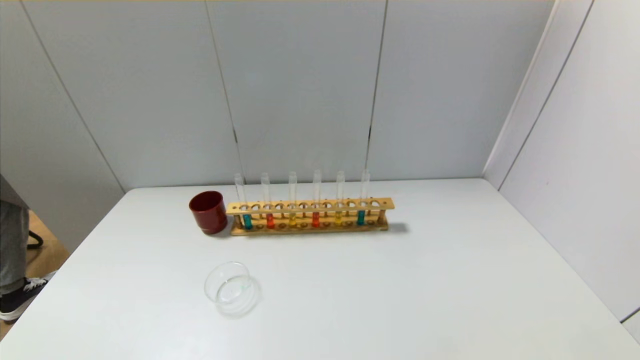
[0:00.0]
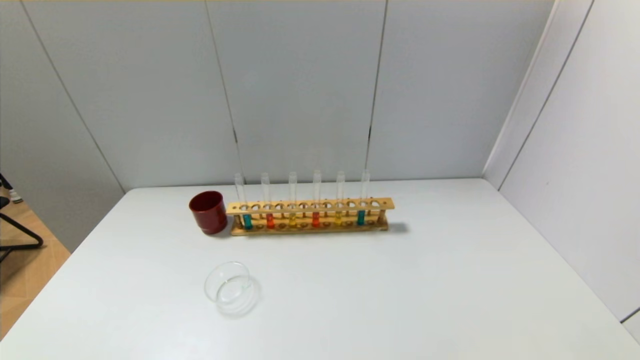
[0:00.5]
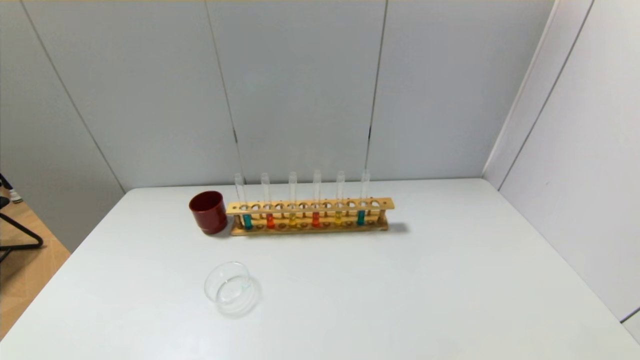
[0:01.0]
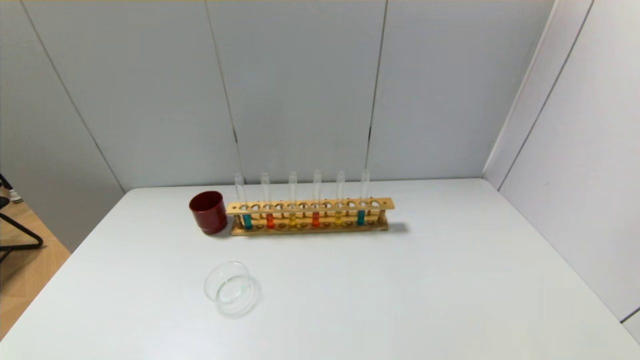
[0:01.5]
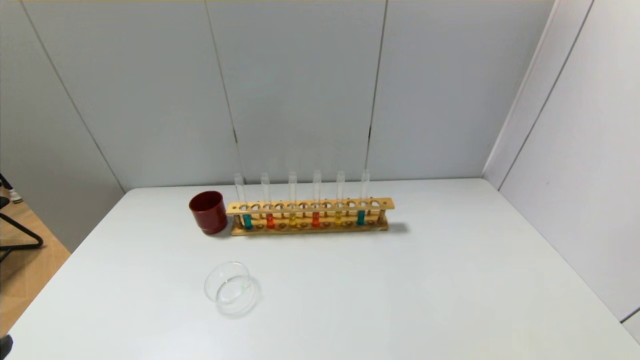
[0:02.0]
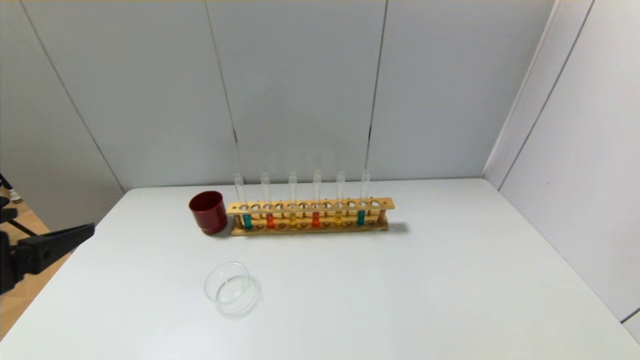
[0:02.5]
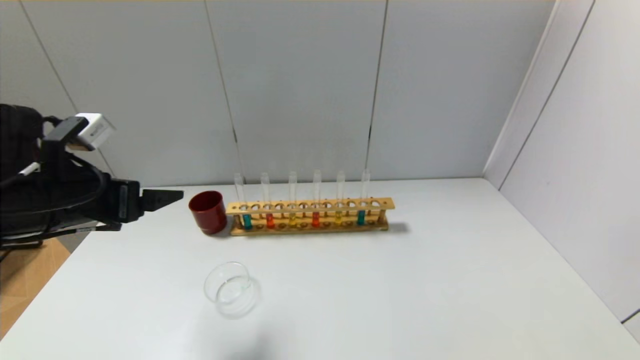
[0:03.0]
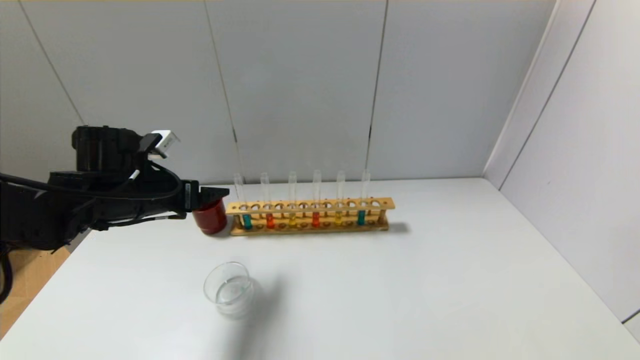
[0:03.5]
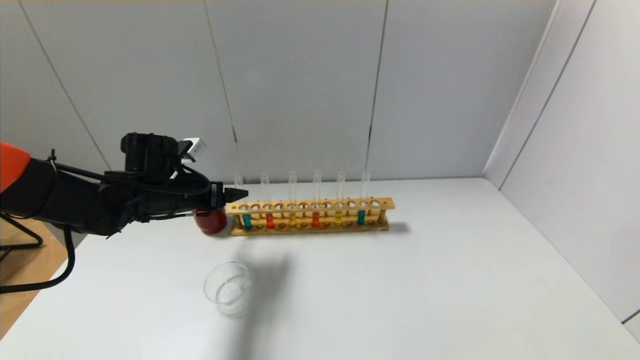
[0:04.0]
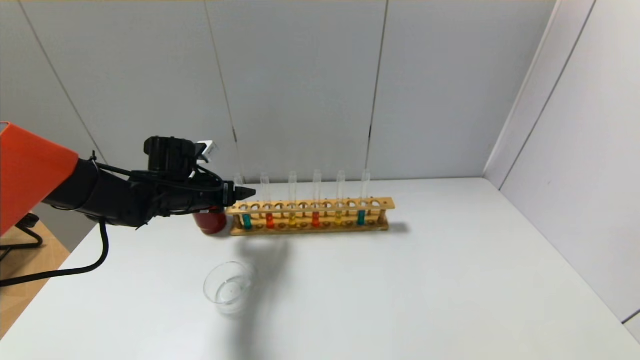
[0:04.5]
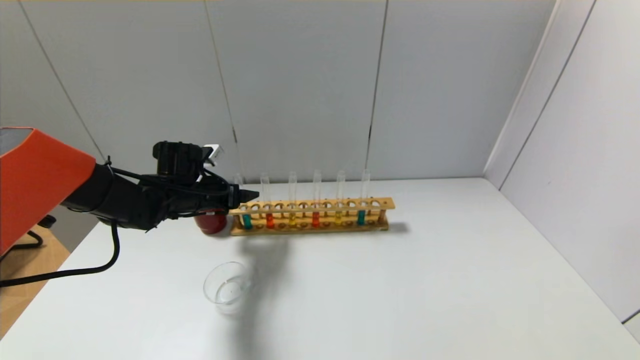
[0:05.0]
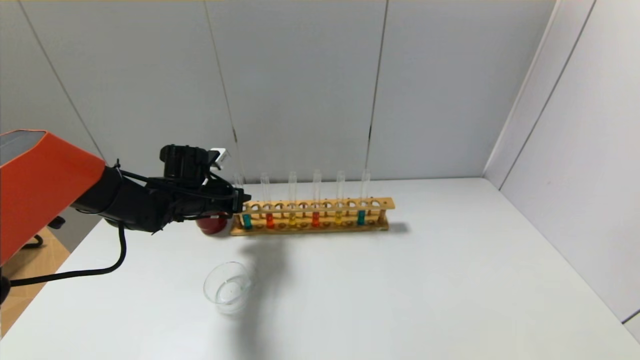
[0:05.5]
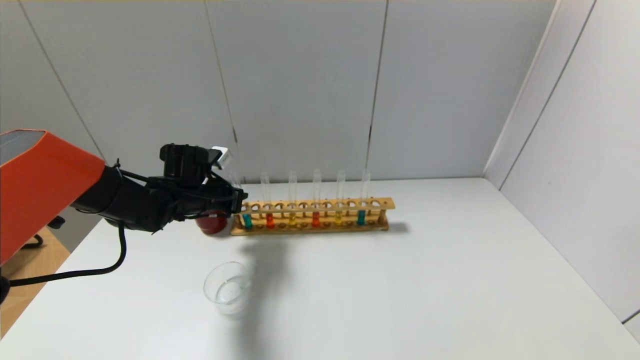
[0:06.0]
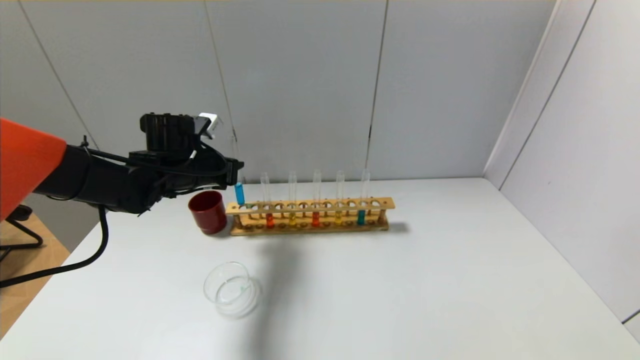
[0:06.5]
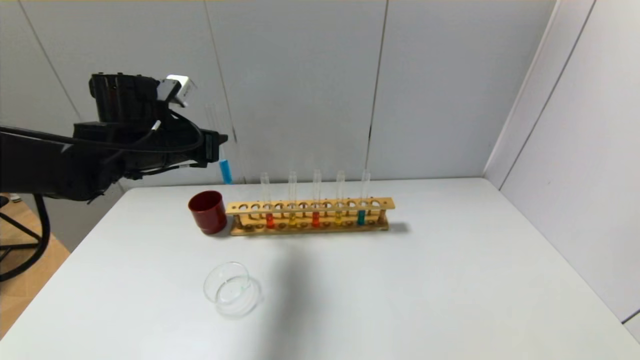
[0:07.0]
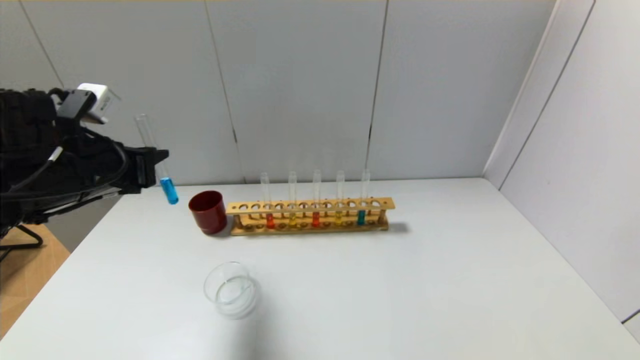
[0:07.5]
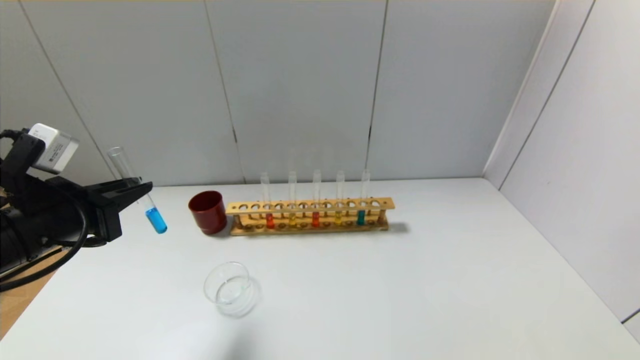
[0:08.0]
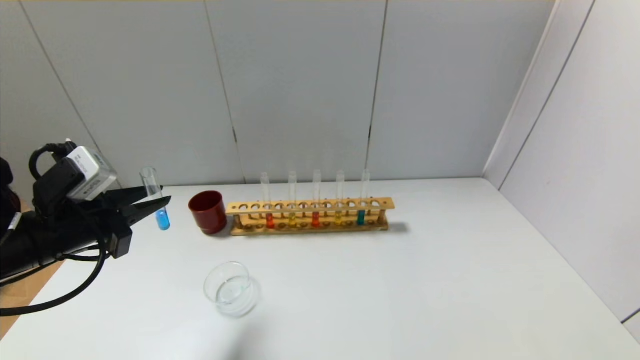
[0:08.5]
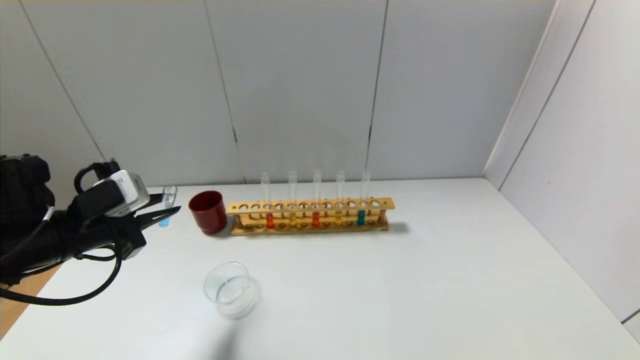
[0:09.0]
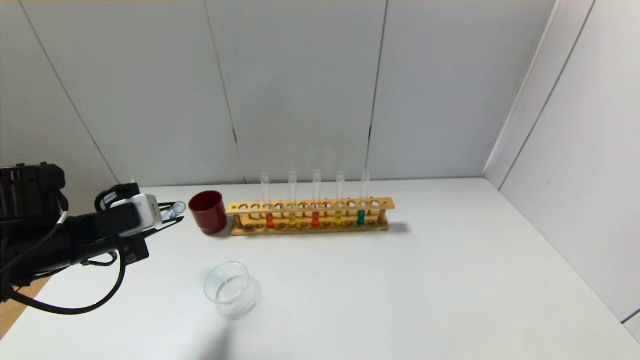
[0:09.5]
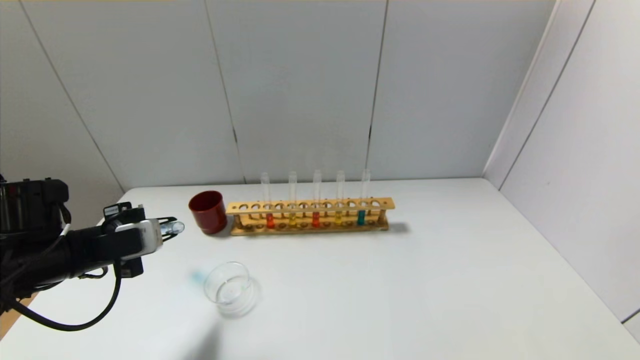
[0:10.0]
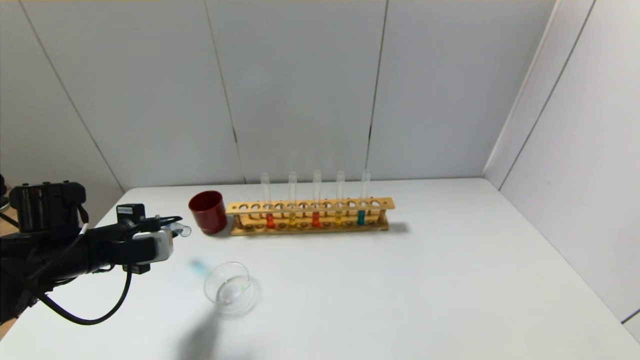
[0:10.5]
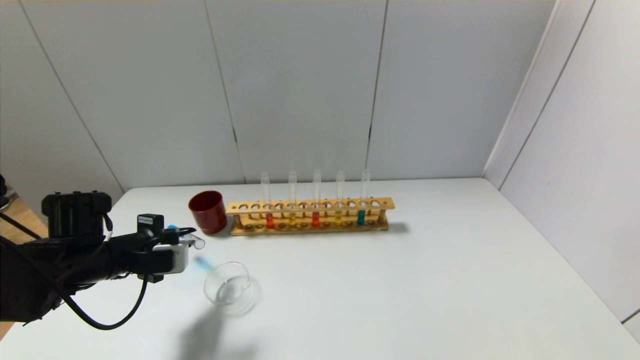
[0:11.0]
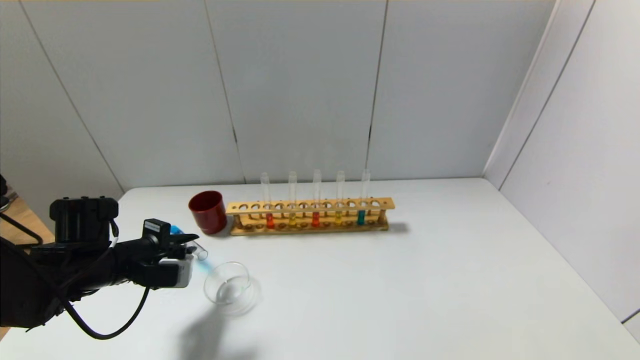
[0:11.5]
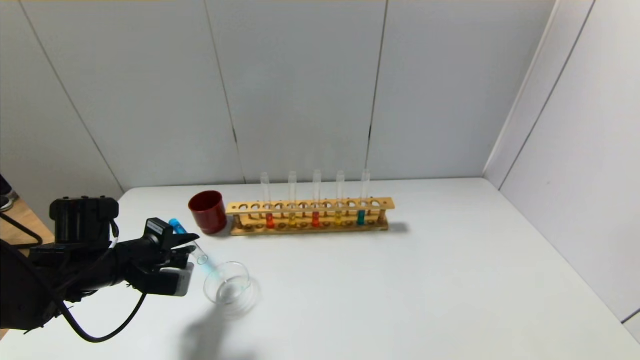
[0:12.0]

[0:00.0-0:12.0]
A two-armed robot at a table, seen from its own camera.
Step, 0:00.0 to 0:05.5: Grasp the blue reagent with the left gripper.
0:00.0 to 0:02.0: The left gripper moves upward, approximately 15 cm.
0:02.0 to 0:04.0: The left gripper heads forward, covering approximately 35 cm.
0:04.0 to 0:06.0: The left gripper ends up approximately 5 cm from where it was, and closes its fingers.
0:06.0 to 0:08.0: The left gripper heads backward, upward and to the left, covering some 25 cm.
0:08.0 to 0:10.0: The left gripper goes approximately 5 cm downward.
0:10.0 to 0:12.0: The left gripper shifts by some 5 cm.

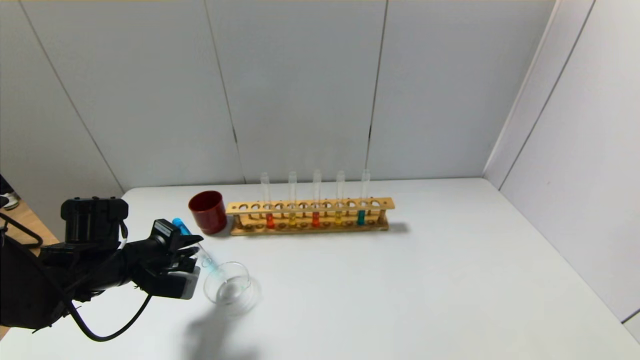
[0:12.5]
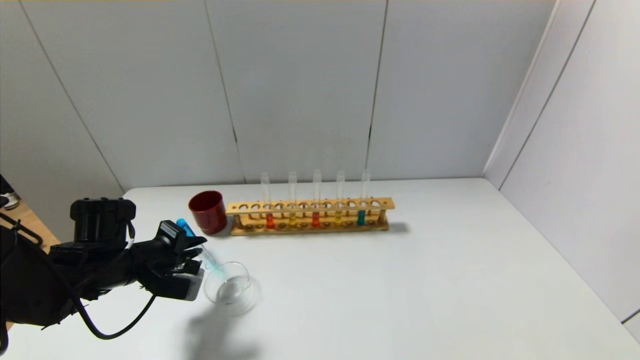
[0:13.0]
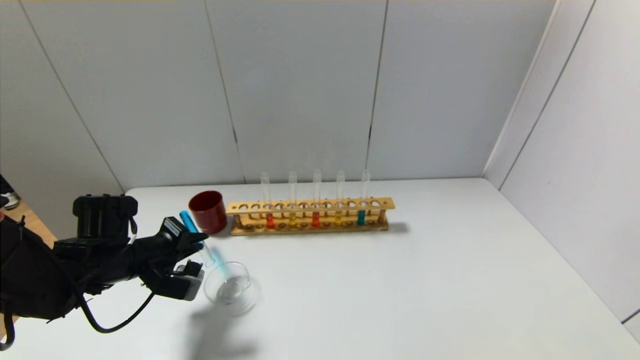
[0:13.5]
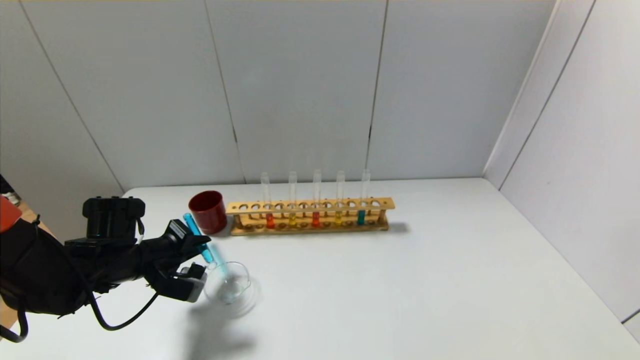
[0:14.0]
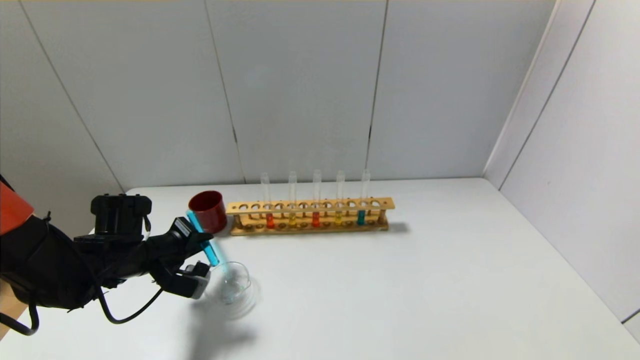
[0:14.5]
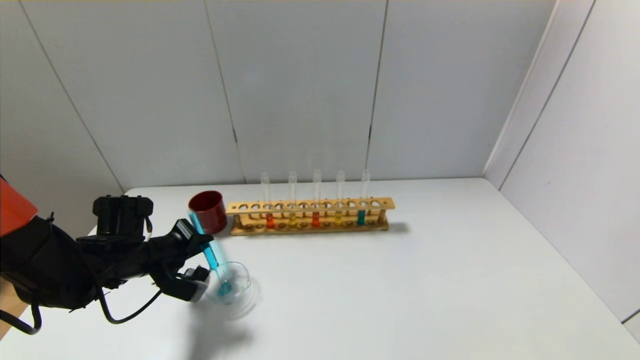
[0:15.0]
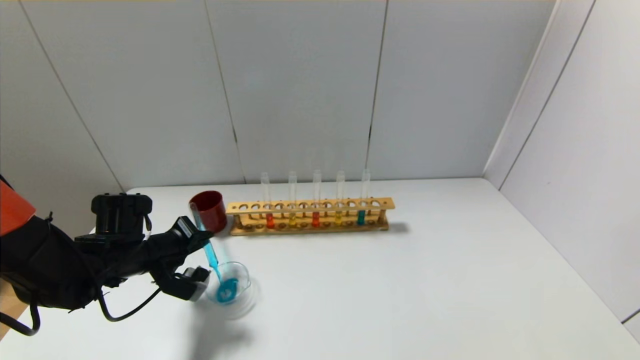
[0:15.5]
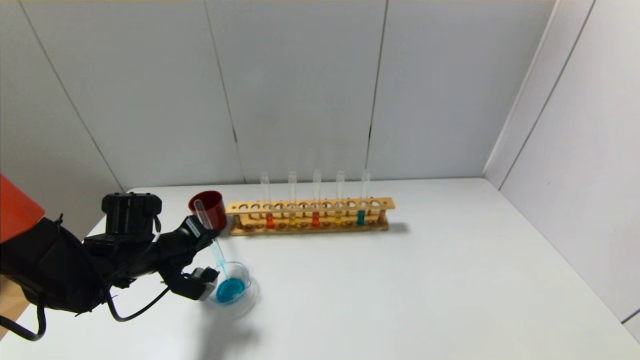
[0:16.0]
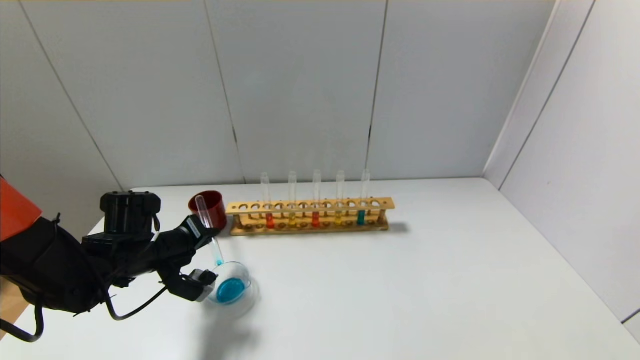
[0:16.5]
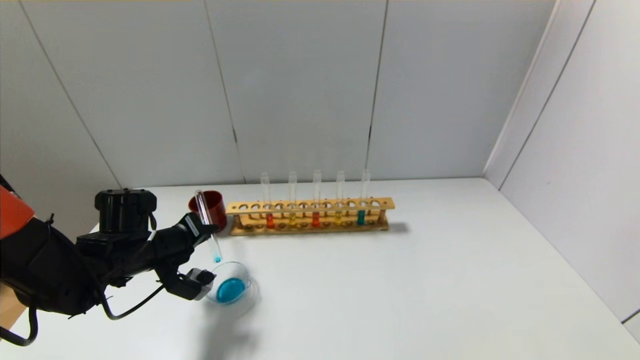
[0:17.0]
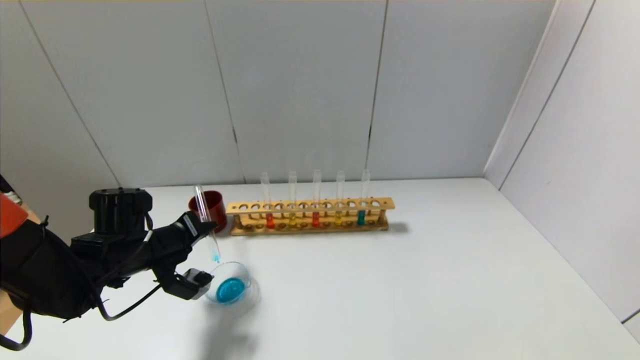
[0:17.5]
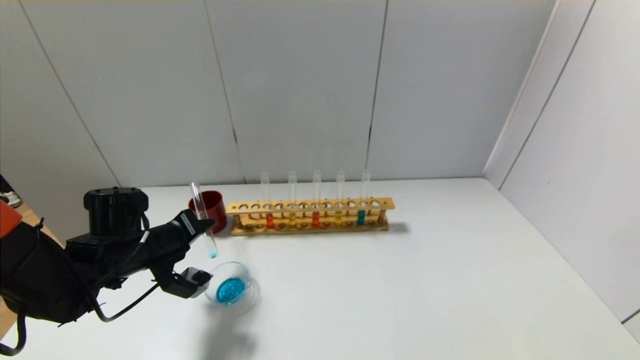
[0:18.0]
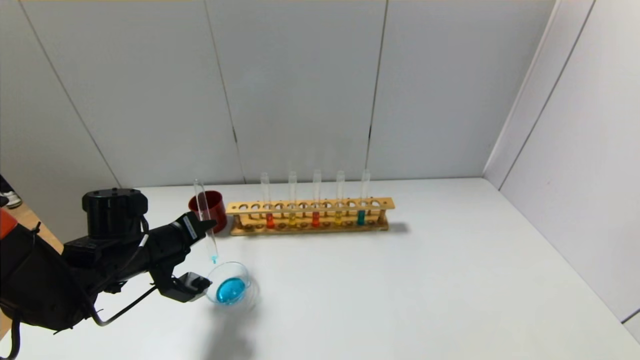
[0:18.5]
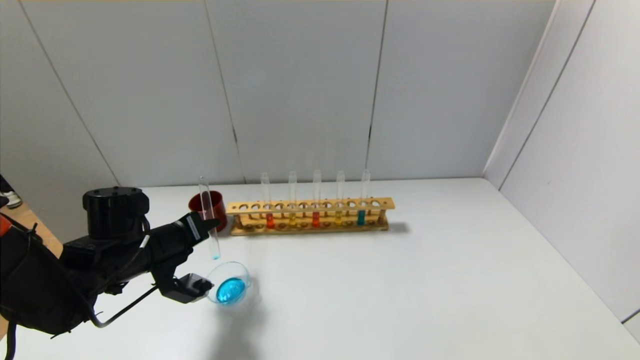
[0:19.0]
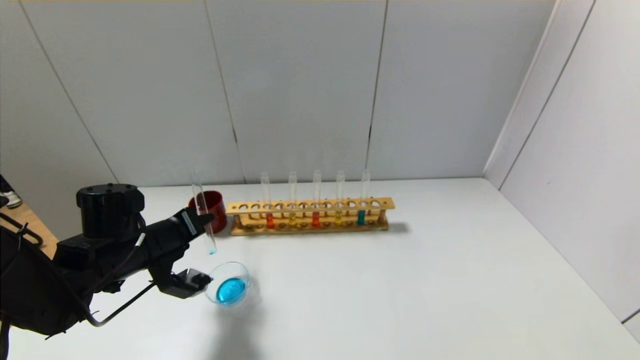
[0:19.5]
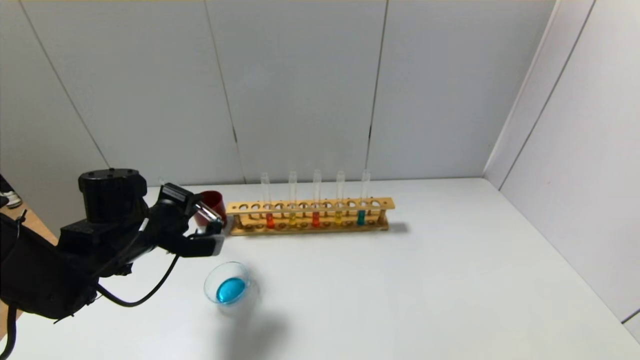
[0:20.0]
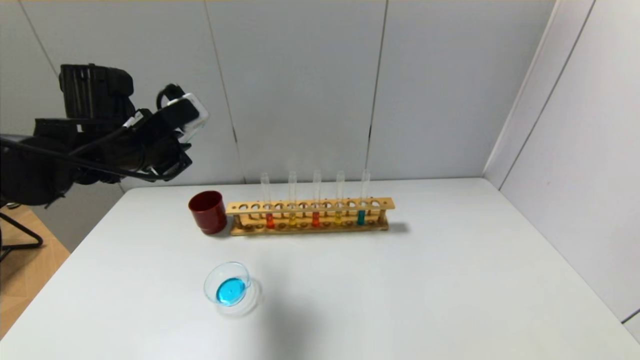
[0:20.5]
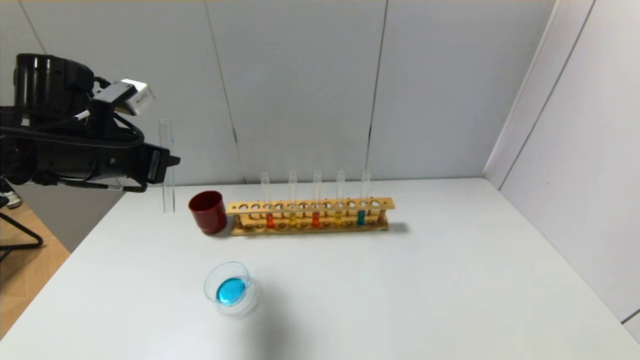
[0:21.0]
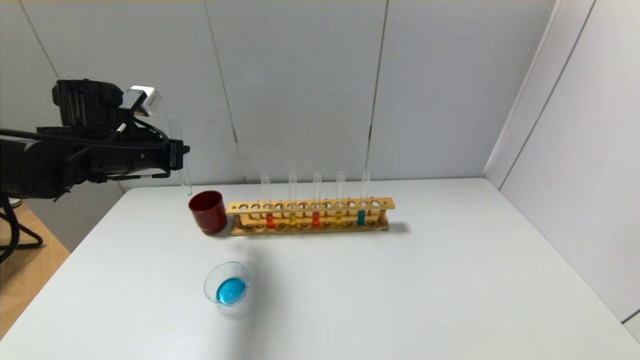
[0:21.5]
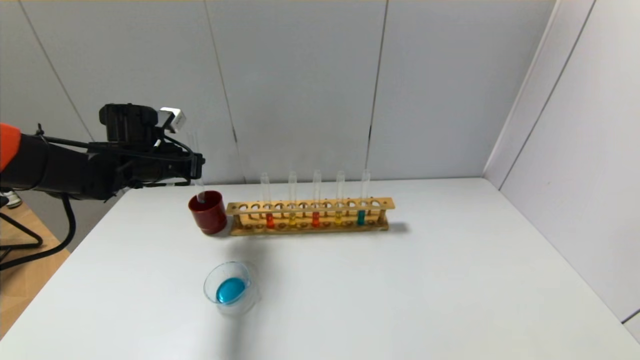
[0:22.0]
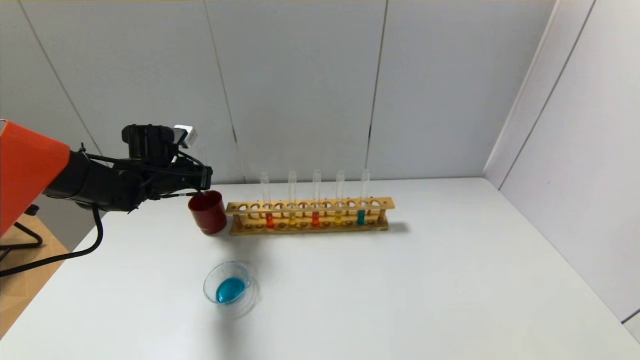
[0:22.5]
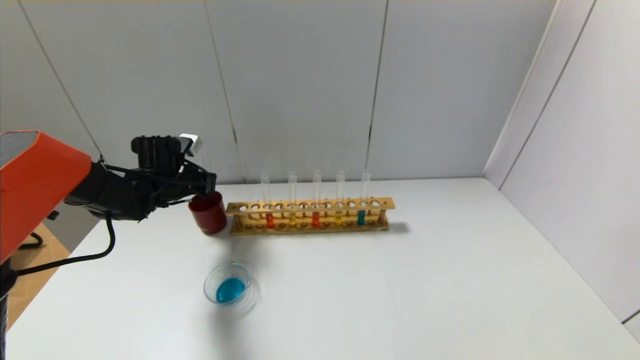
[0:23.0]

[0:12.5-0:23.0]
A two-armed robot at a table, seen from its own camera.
Step, 0:12.5 to 0:19.5: Pour the blue reagent into the graduated cylinder with the left gripper.
0:12.5 to 0:14.5: The grippers stay close to where they were, moving slightly.
0:14.5 to 0:16.5: The grippers move only a little.
0:16.5 to 0:19.0: The grippers move only a little.
0:19.0 to 0:21.0: The left gripper travels upward by approximately 15 cm.
0:21.0 to 0:23.0: The left gripper goes approximately 20 cm forward and downward.
